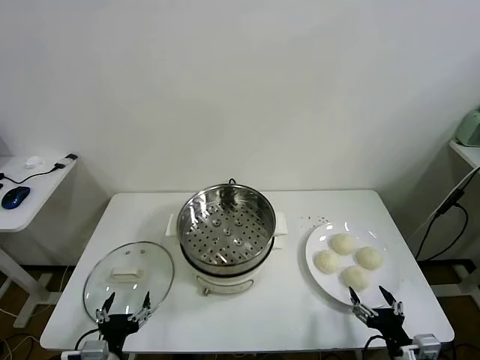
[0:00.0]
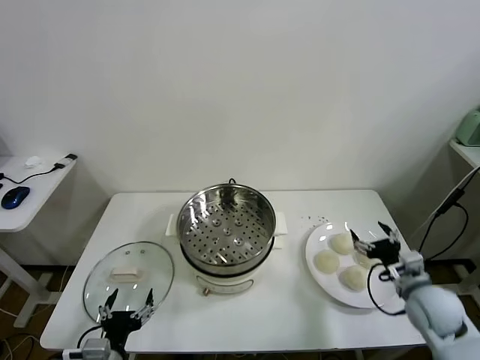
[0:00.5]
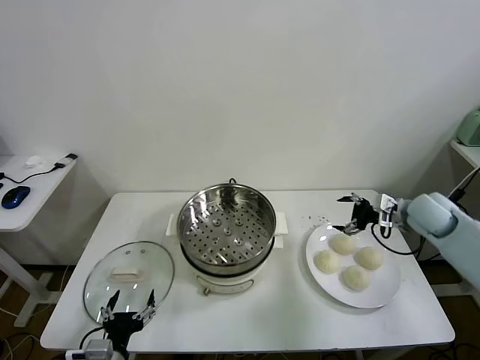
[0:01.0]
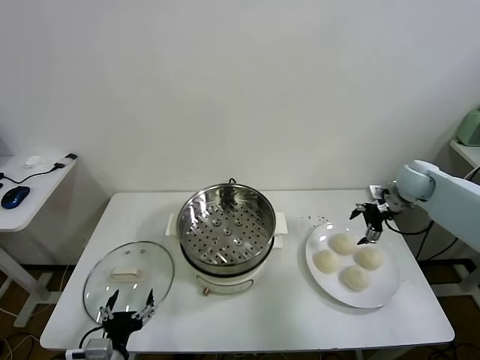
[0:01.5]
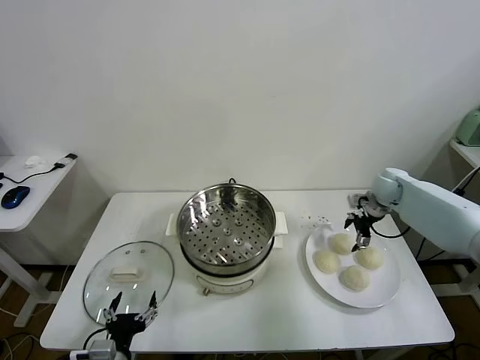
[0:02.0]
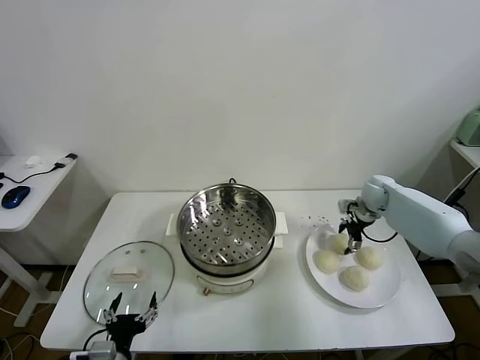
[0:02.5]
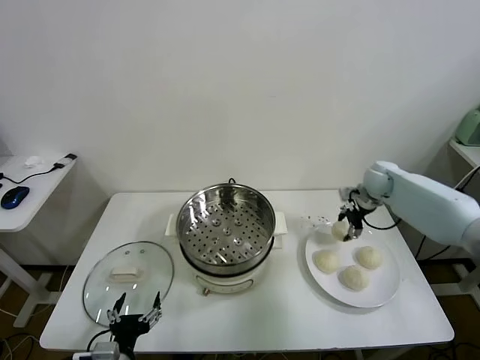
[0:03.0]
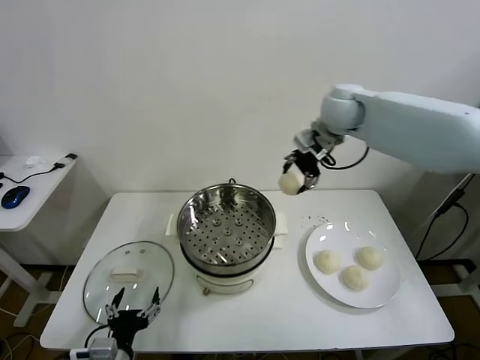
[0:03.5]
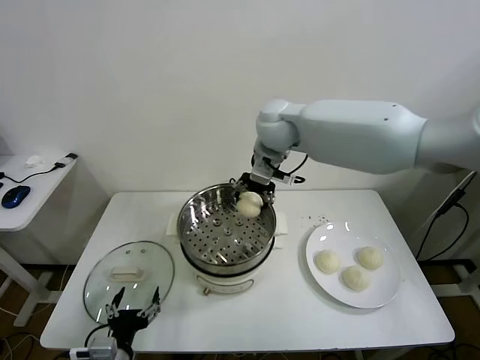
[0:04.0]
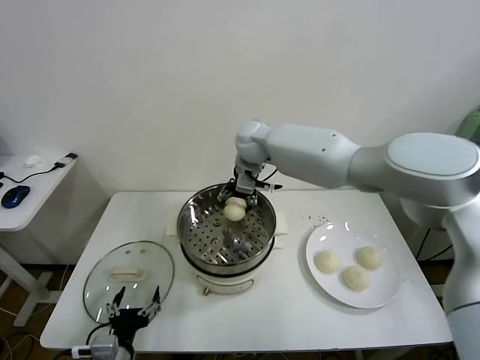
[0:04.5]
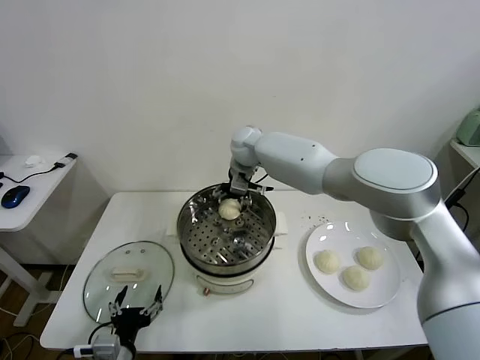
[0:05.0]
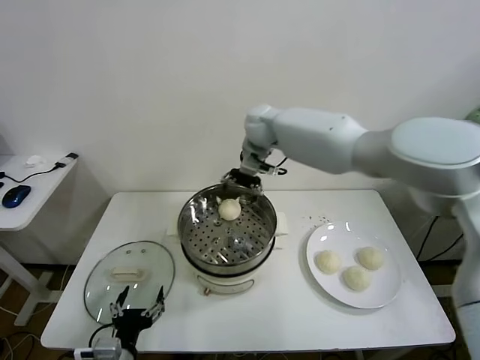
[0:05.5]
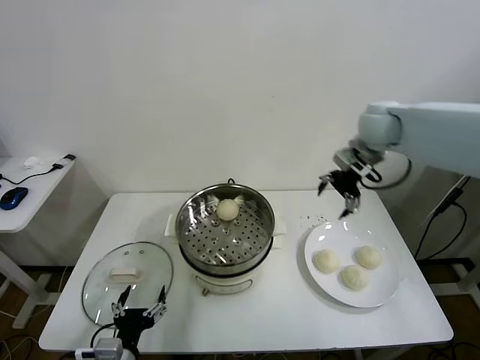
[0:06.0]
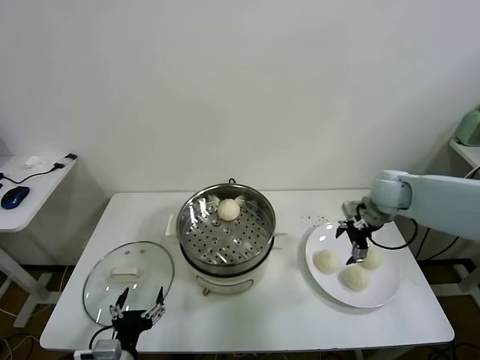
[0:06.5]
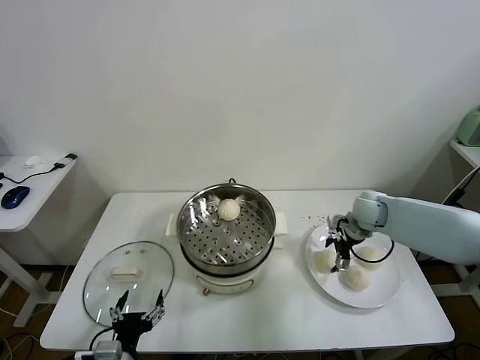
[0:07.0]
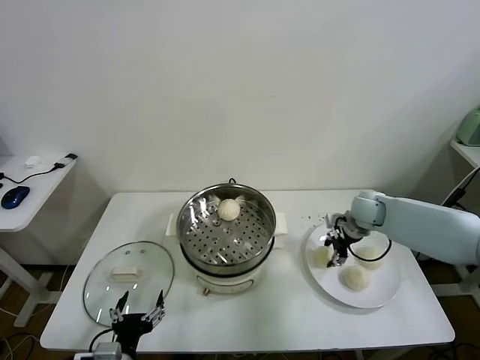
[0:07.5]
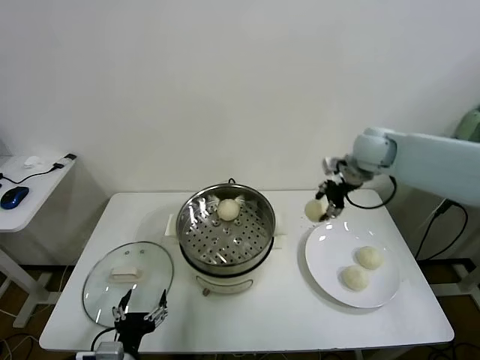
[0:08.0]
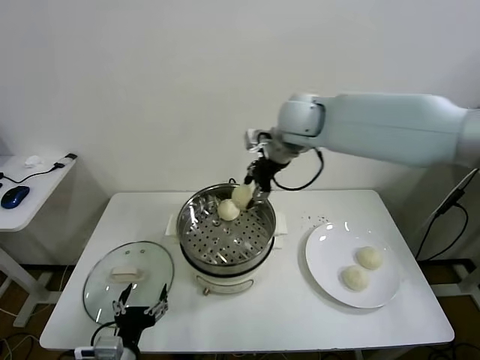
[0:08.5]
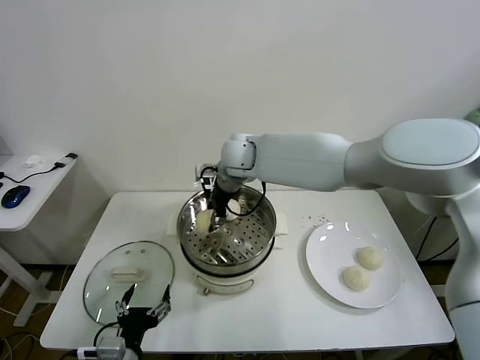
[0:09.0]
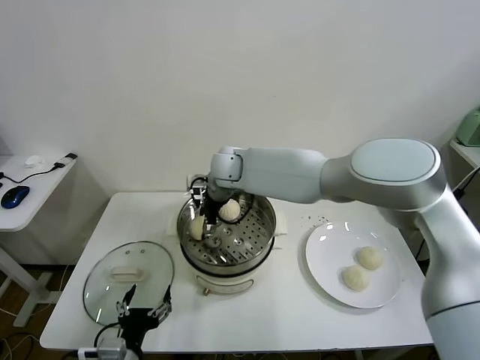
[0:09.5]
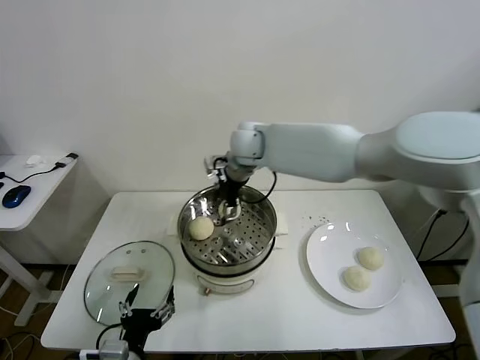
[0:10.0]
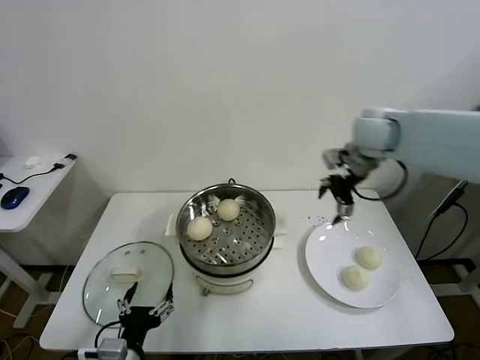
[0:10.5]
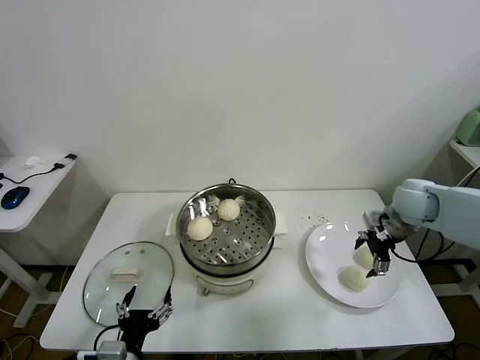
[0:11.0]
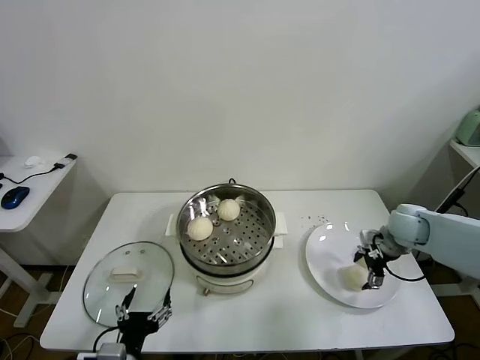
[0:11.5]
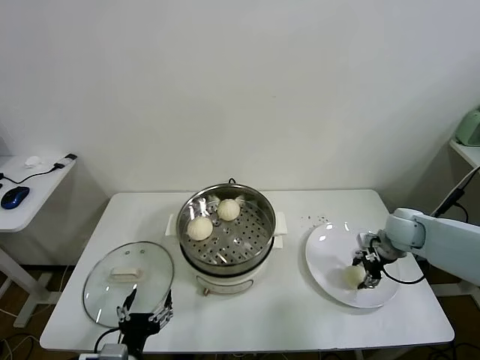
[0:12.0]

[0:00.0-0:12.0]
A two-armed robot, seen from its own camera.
Task of the whole recording: take steamed baozi put them in steamer.
Step, 0:00.0 to 0:02.5: Grasp the baozi in the plate with right gripper.
Step, 0:03.0 to 0:05.0: Place the baozi on the steamer with right gripper.
Step, 0:05.5 to 0:07.0: Grasp the baozi in the plate with right gripper.
Step, 0:07.5 to 0:09.5: Place the baozi on the steamer with right gripper.
Step, 0:10.0 to 0:12.0: Grasp the baozi in the plate with right gripper.
0:02.0 to 0:04.0: The right gripper shifts about 40 cm to the left and upward, and closes up.
0:04.0 to 0:06.0: The right gripper heads to the right, covering roughly 25 cm, and opens its fingers.
0:06.0 to 0:08.0: The right gripper goes downward and returns, some 20 cm each way, and closes its fingers.
0:08.0 to 0:10.0: The right gripper heads to the left, covering approximately 25 cm, and opens its fingers.
0:10.0 to 0:12.0: The right gripper shifts some 40 cm to the right and downward, and closes up.

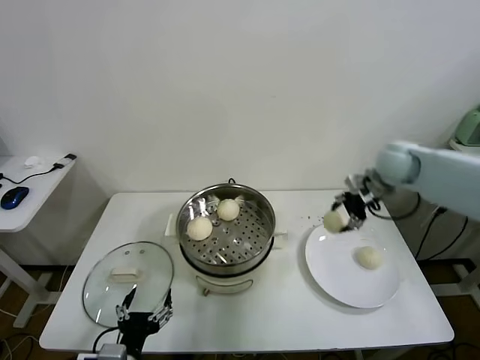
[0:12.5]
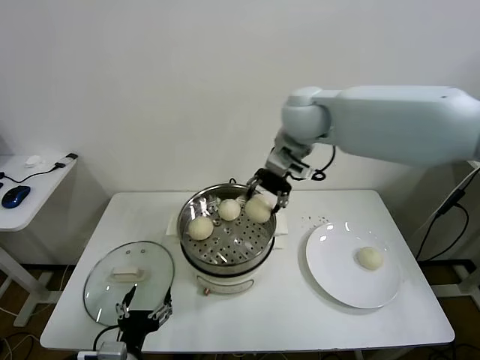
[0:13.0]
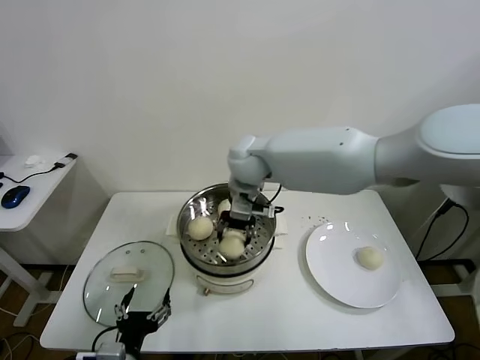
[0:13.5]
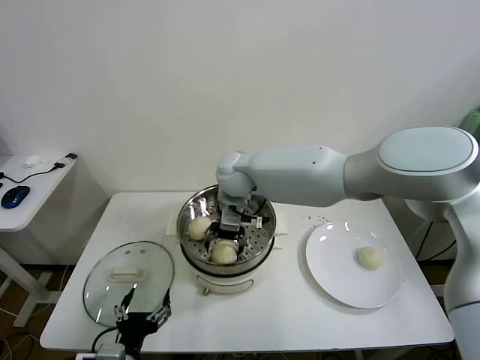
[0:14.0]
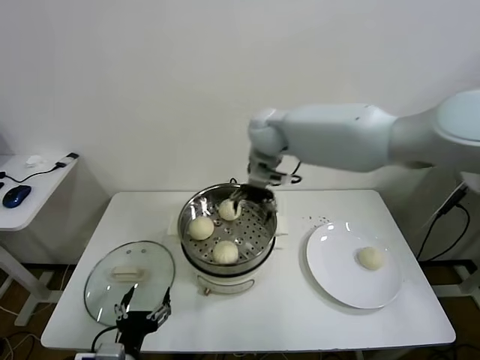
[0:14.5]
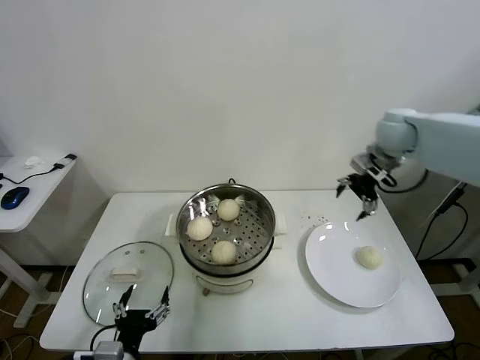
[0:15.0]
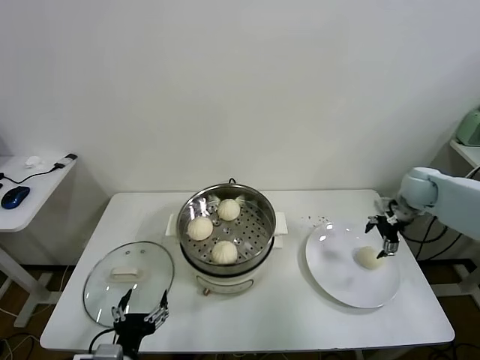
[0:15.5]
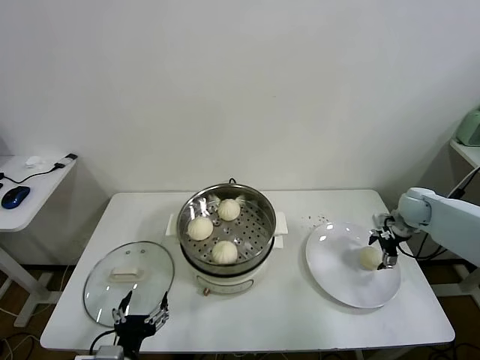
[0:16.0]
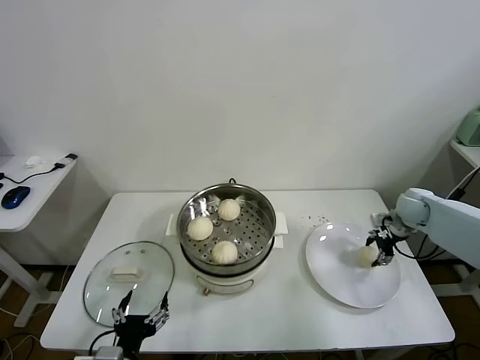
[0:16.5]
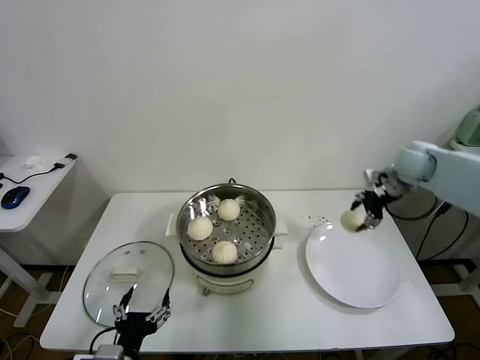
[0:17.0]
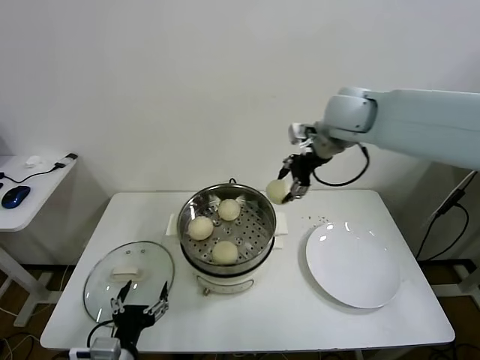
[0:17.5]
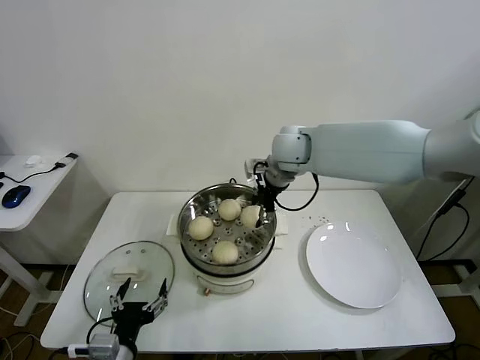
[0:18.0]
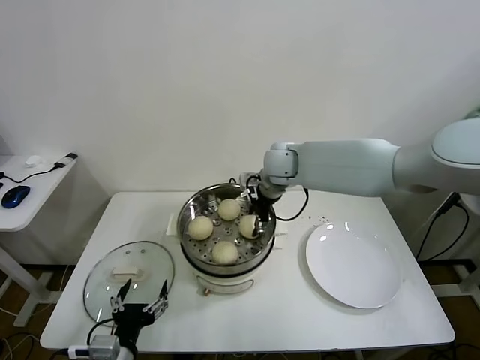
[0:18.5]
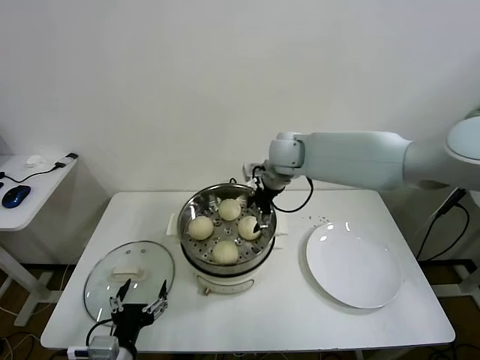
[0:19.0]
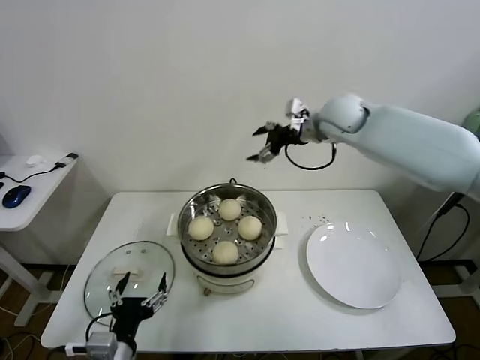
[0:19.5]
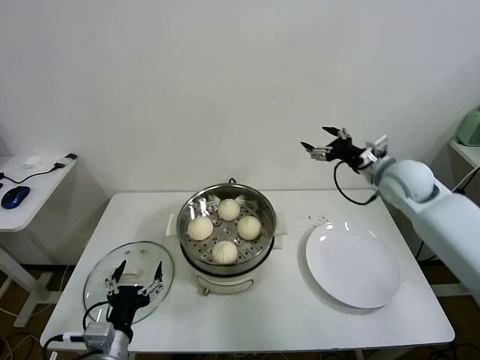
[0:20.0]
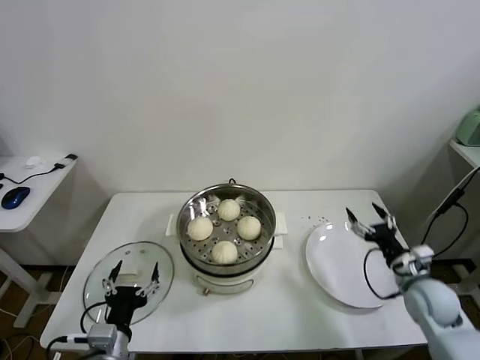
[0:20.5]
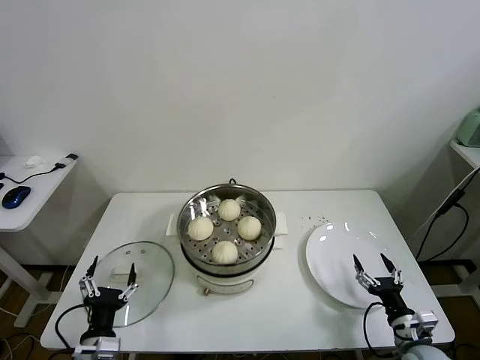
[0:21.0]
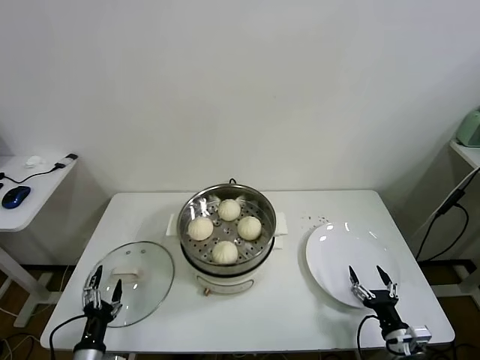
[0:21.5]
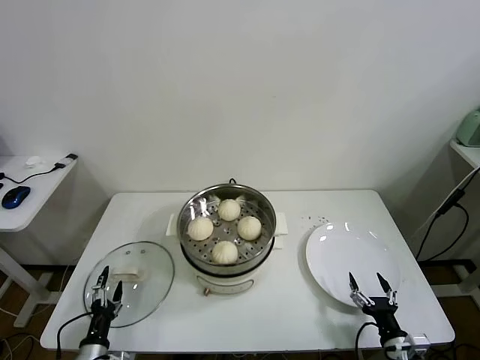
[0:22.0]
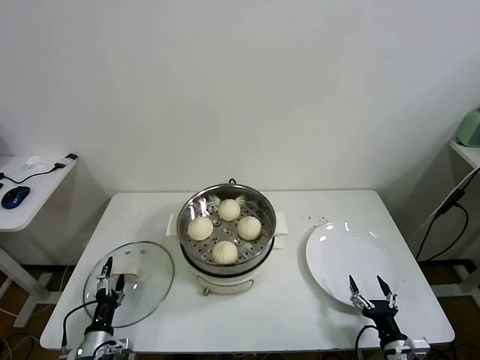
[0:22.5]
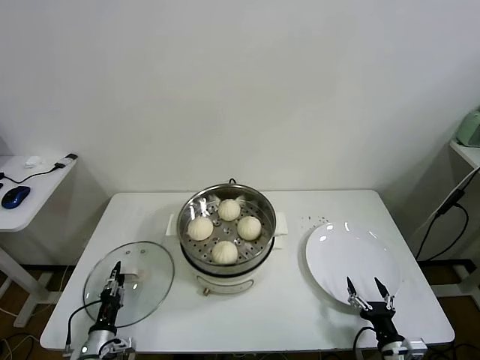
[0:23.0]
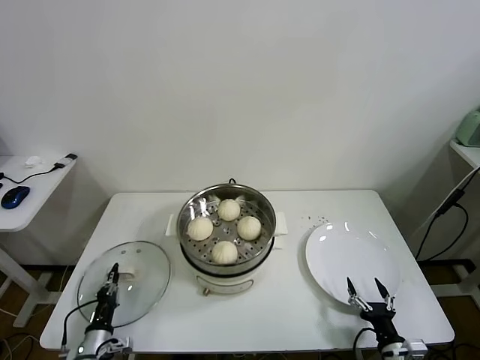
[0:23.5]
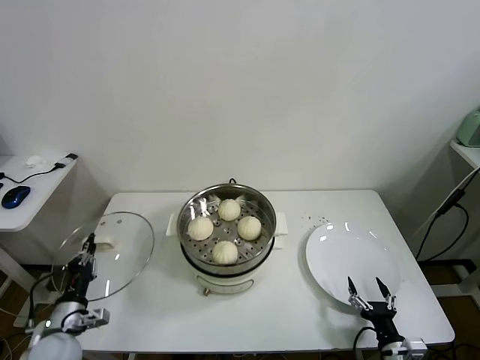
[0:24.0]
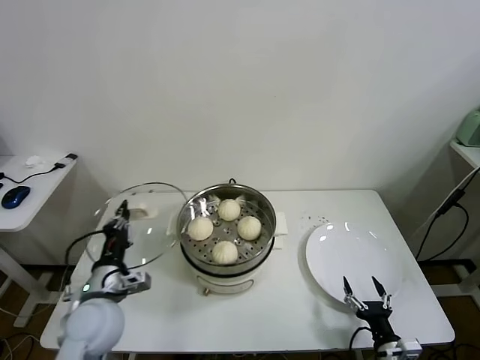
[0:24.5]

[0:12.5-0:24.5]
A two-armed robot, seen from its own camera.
Task of the whole recording: take steamed baozi put them in steamer.
Step, 0:12.5 to 0:14.0: Place the baozi on the steamer with right gripper.
Step, 0:14.5 to 0:16.0: Grasp the baozi in the plate with right gripper.
Step, 0:16.5 to 0:18.5: Place the baozi on the steamer with right gripper.
Step, 0:19.5 to 0:23.0: Grasp the pot lid with left gripper.
0:12.5 to 0:14.5: The right gripper shifts about 25 cm to the left, and opens its fingers.
0:14.5 to 0:16.5: The right gripper is displaced to the right and downward by roughly 40 cm, and closes its fingers.
0:16.5 to 0:18.5: The right gripper goes some 35 cm to the left.
0:18.5 to 0:20.5: The right gripper moves to the right, backward and downward, approximately 40 cm, and opens.
0:20.5 to 0:22.5: The left gripper shifts roughly 20 cm downward and to the left. Meanwhile the right gripper heads backward and downward, covering approximately 20 cm.
0:22.5 to 0:24.5: The left gripper heads upward, covering roughly 20 cm, and closes up.

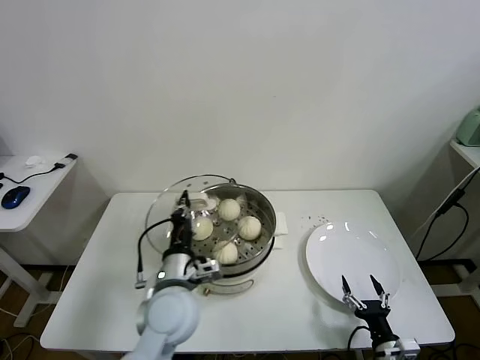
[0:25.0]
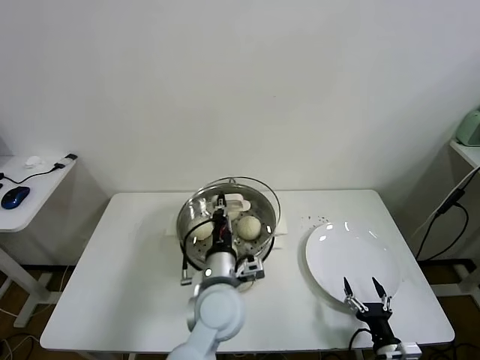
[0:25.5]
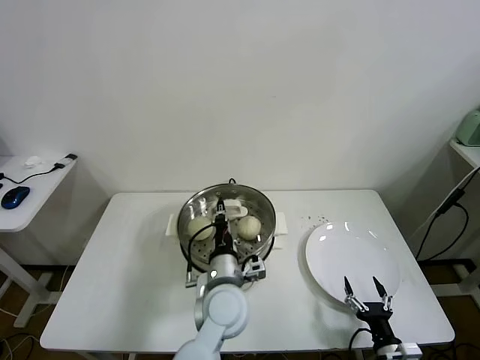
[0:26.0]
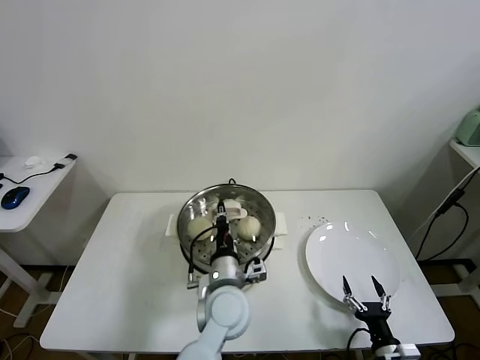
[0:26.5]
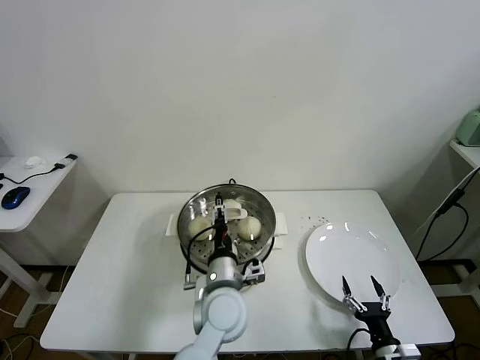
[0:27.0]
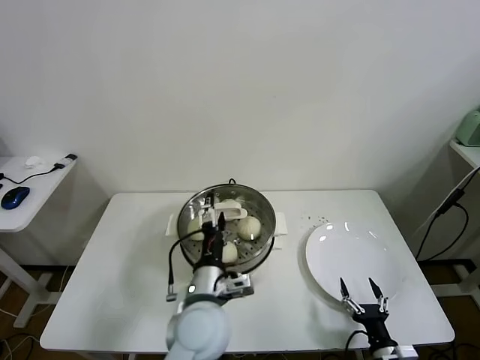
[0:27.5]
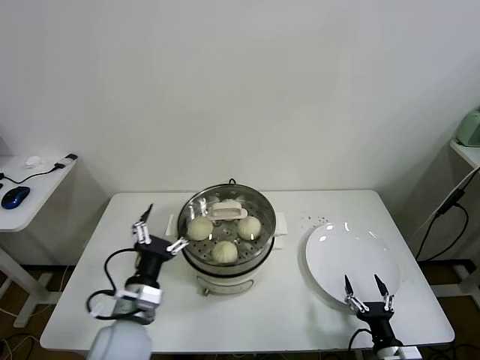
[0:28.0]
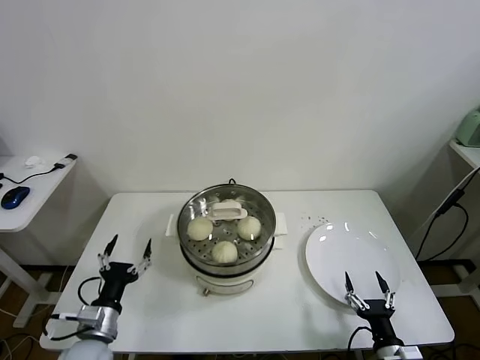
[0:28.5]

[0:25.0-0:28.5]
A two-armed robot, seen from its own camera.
Task of the whole recording: take steamed baozi put them in steamer.
Step, 0:25.0 to 0:27.0: Place the pot lid on the steamer with left gripper.
0:25.0 to 0:27.0: The left gripper heads to the right, covering approximately 10 cm, and opens.
0:27.0 to 0:28.5: The left gripper travels to the left by approximately 25 cm, and opens up.
